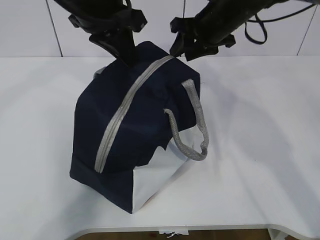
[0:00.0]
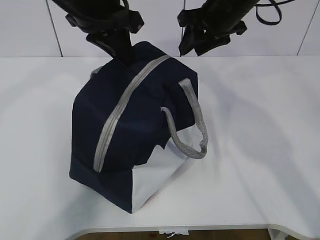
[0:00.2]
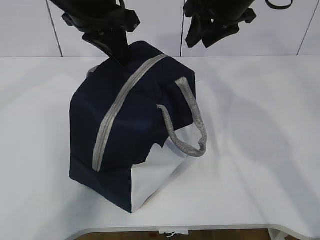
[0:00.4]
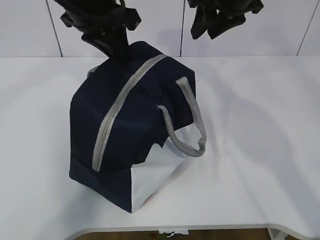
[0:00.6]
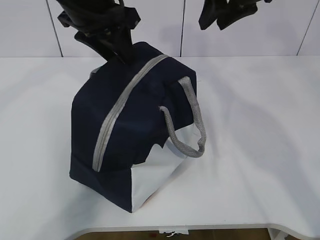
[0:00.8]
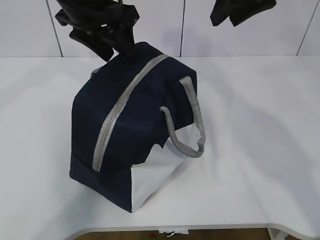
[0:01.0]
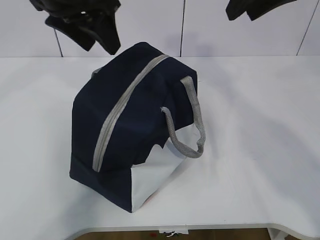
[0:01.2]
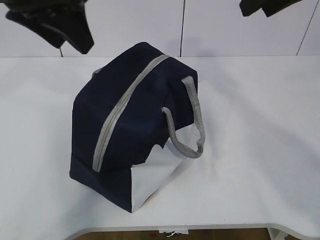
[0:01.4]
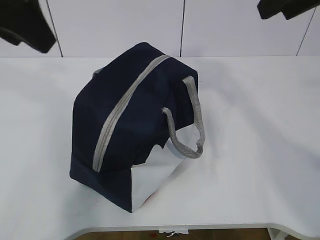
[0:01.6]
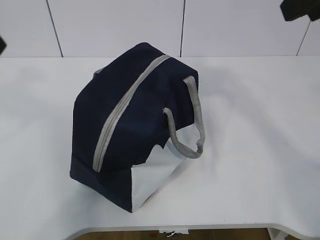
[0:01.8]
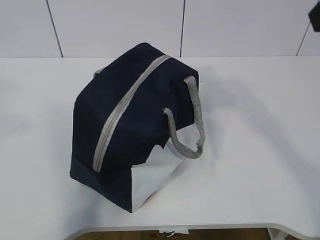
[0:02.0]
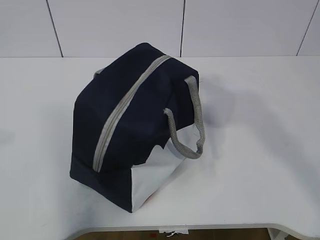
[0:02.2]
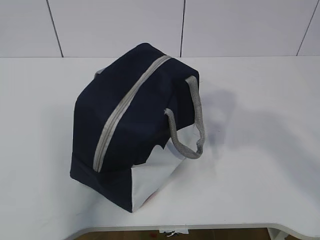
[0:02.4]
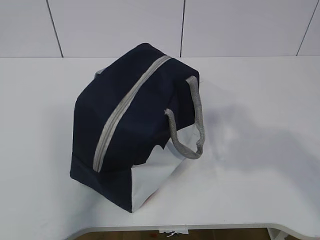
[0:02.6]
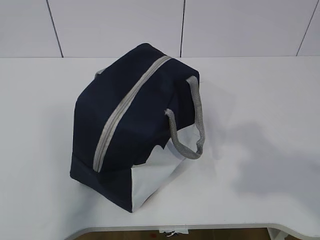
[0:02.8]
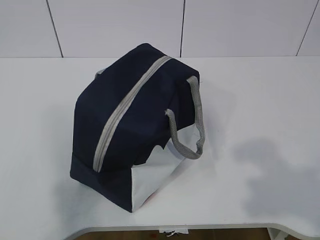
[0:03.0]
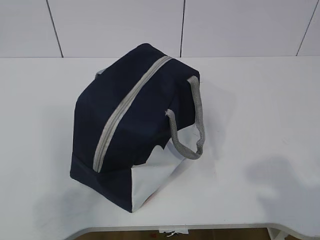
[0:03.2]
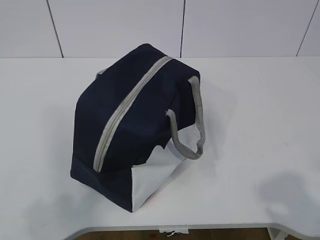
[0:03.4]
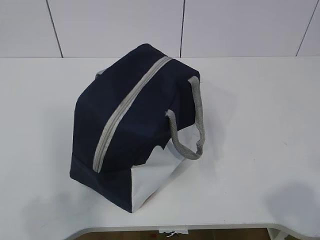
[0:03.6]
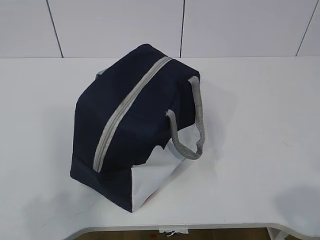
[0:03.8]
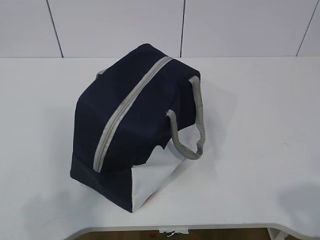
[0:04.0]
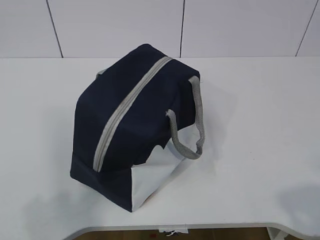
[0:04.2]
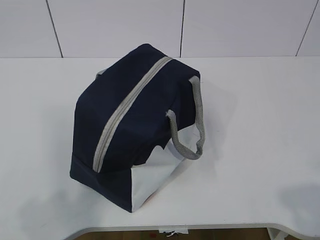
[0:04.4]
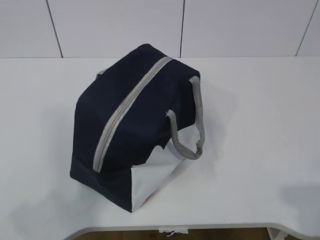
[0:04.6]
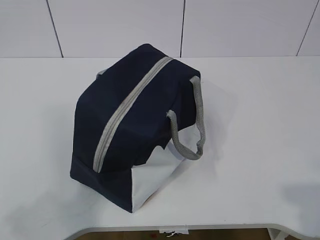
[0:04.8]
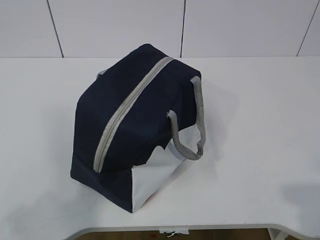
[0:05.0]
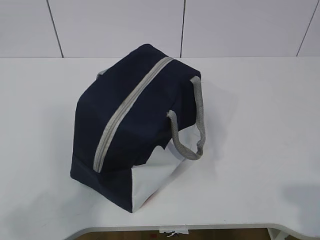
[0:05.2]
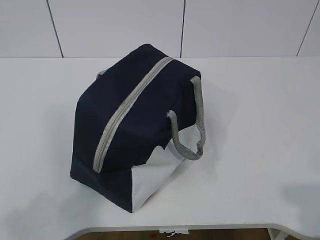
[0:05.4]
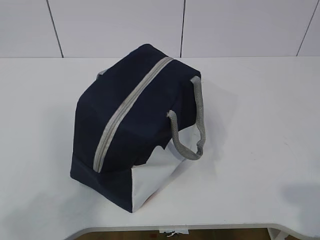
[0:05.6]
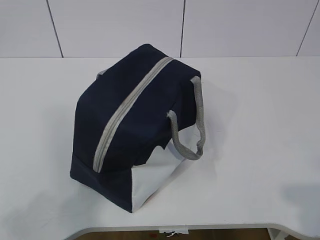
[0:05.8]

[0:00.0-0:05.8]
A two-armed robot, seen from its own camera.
0:00.0 to 0:01.4: The left gripper goes roughly 10 cm to the left and backward, and opens; the right gripper is displaced upward and backward by approximately 20 cm.
0:01.4 to 0:02.8: The right gripper goes approximately 25 cm backward. Meanwhile the left gripper travels backward and to the left by some 35 cm.
0:02.8 to 0:04.4: The right gripper heads downward and backward, covering some 10 cm, while the left gripper is displaced downward by some 10 cm.
0:04.4 to 0:05.8: The grippers stay close to where they were, moving slightly.

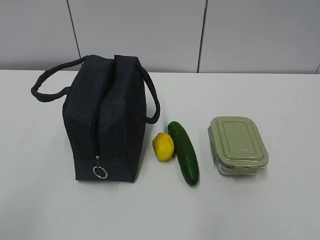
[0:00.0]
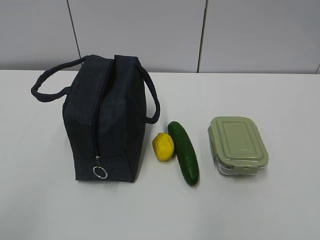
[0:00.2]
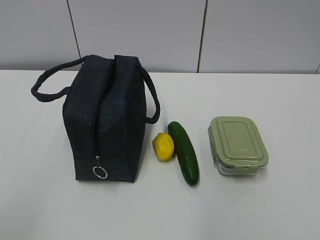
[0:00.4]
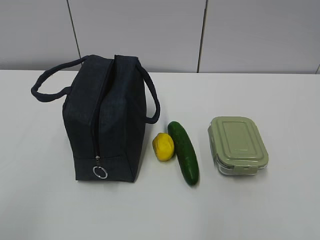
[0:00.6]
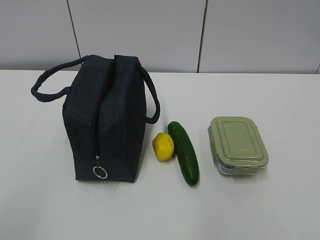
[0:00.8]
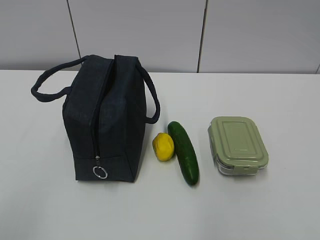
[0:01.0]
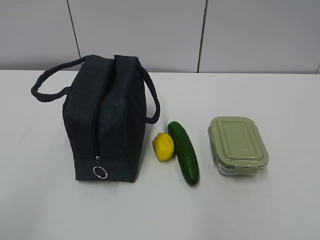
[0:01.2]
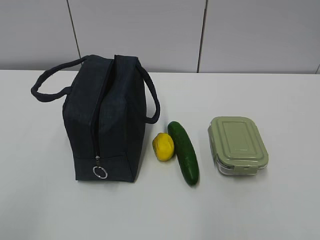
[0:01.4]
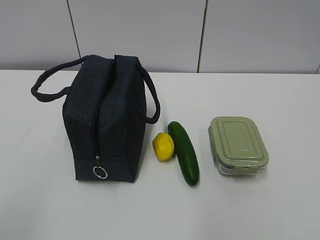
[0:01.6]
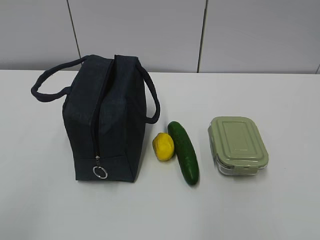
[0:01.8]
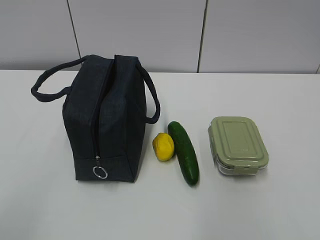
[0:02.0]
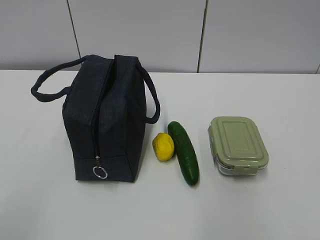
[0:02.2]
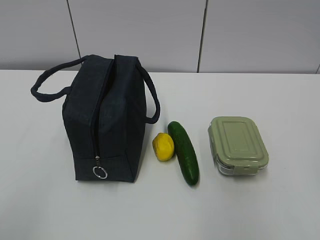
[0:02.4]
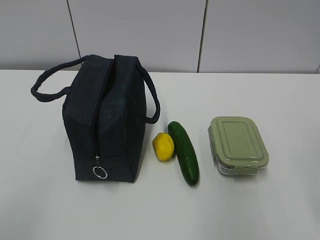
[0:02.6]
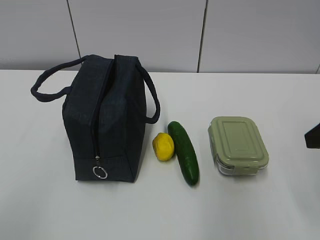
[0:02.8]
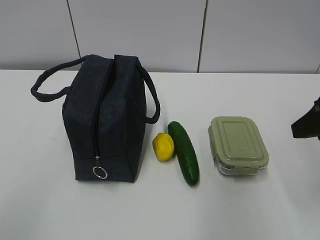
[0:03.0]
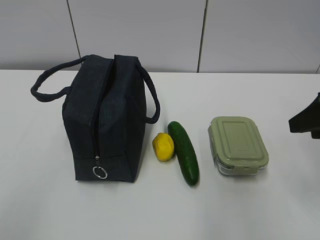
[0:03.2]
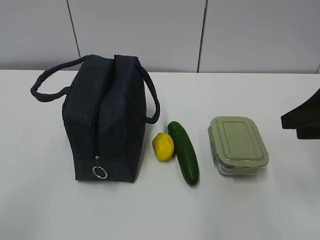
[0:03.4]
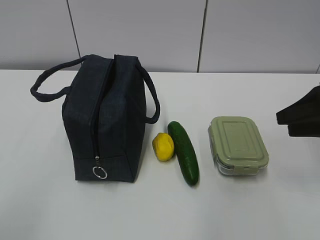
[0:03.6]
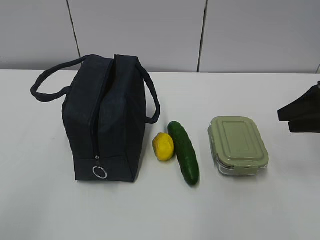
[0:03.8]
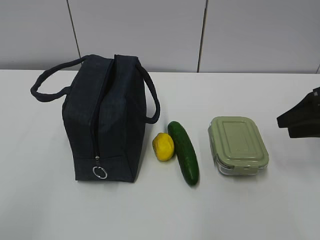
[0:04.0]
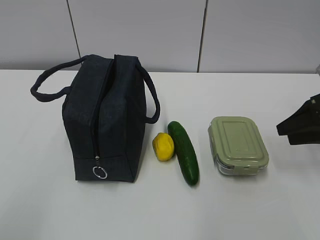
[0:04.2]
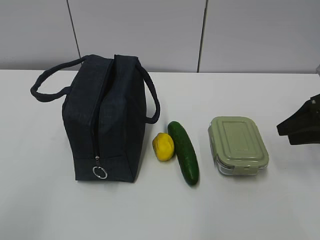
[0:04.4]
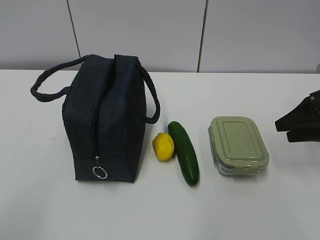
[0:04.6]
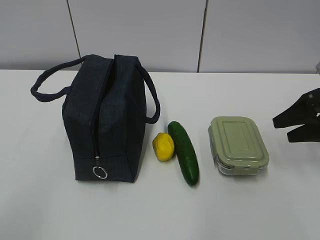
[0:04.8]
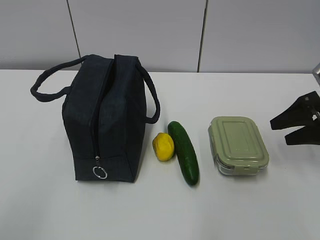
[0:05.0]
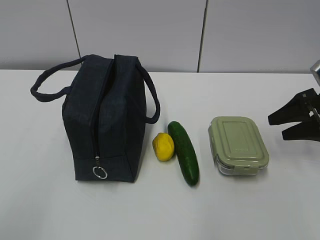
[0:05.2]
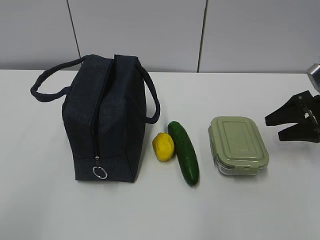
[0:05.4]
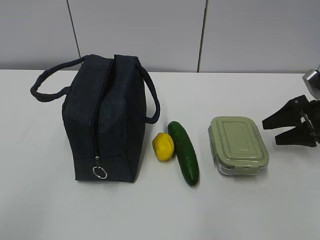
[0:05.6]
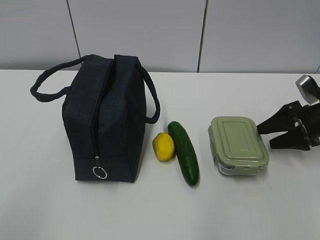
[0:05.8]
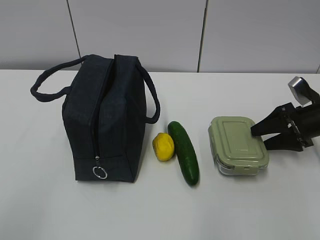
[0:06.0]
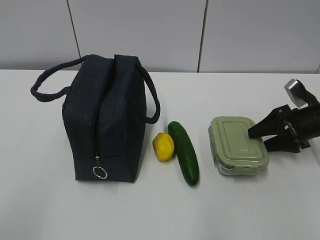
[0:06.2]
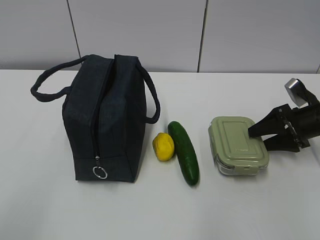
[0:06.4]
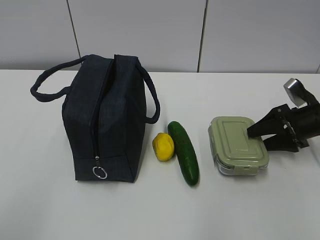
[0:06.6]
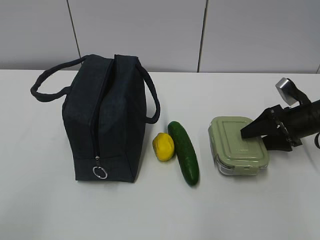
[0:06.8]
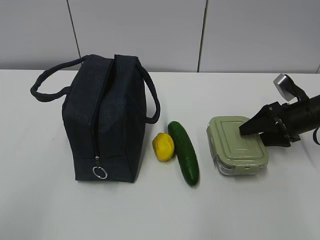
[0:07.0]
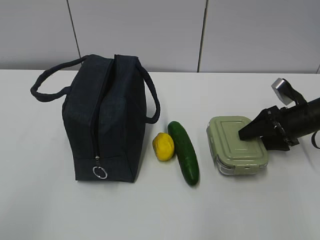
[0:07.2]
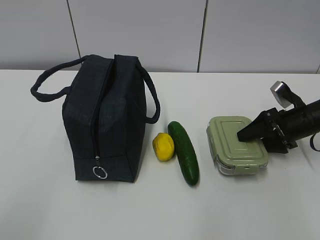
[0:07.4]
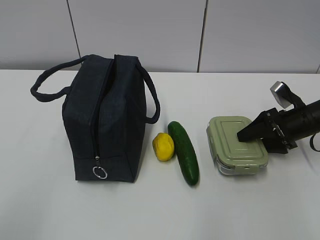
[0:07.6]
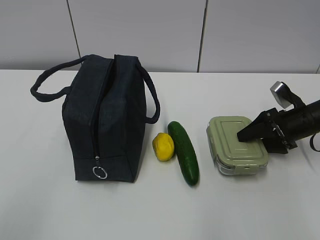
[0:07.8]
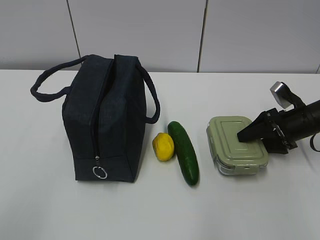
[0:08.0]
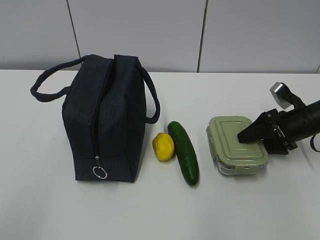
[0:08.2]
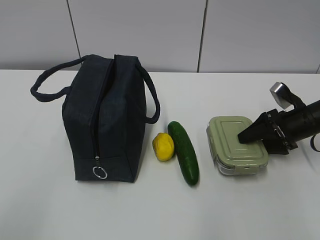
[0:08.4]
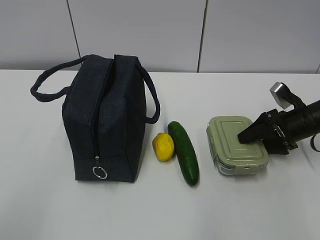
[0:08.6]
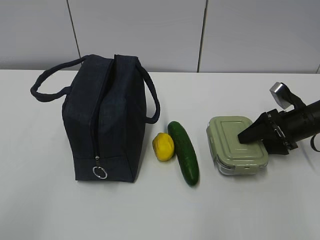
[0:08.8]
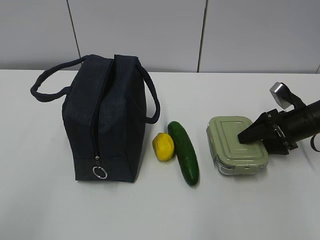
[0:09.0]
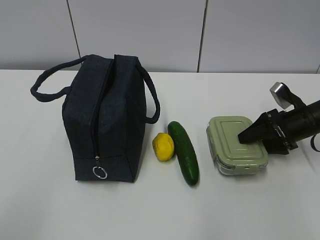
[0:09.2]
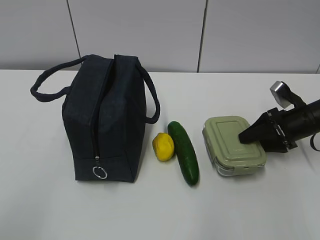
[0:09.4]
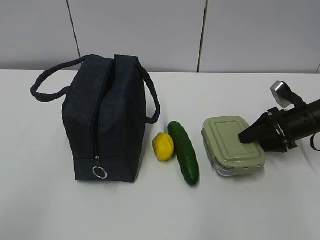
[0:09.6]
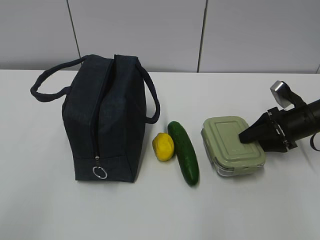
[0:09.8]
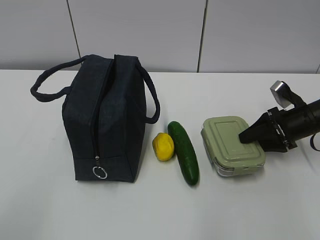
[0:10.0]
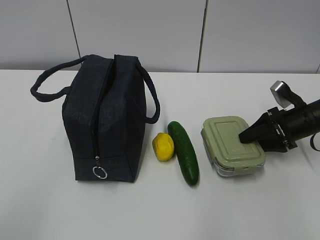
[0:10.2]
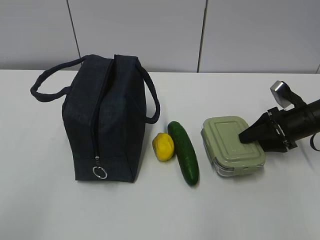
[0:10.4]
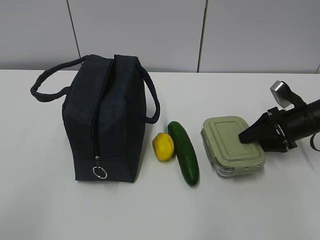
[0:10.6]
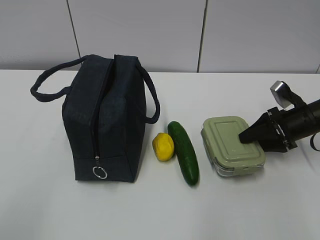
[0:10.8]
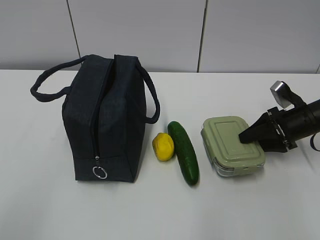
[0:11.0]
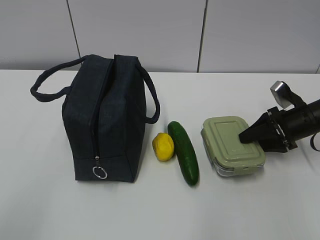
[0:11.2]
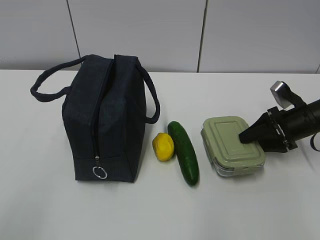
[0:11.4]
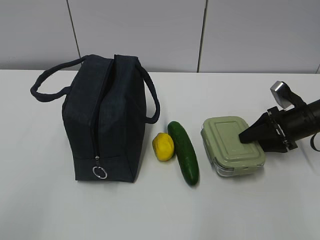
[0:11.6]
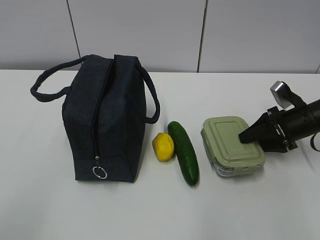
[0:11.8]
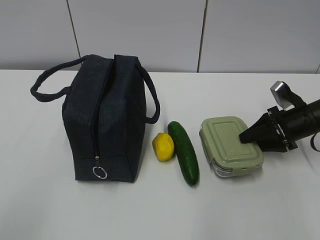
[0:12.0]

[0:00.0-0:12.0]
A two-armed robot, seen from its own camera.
0:01.6 to 0:03.0: The right gripper travels forward by some 20 cm.
0:03.0 to 0:04.4: The right gripper is displaced forward, downward and to the right by roughly 15 cm.
0:04.4 to 0:06.0: The right gripper shifts some 10 cm downward and forward.
0:06.0 to 0:07.6: There are only small adjustments of the grippers.
0:07.6 to 0:12.0: Both grippers stay put.

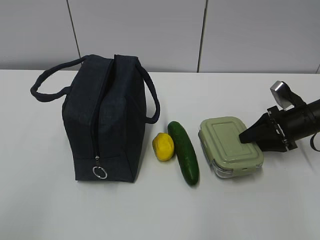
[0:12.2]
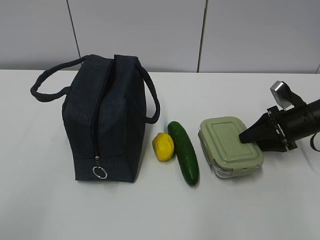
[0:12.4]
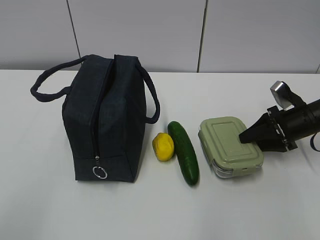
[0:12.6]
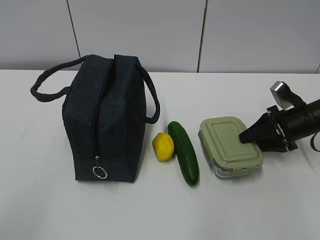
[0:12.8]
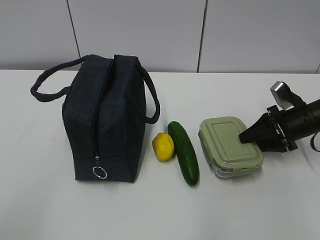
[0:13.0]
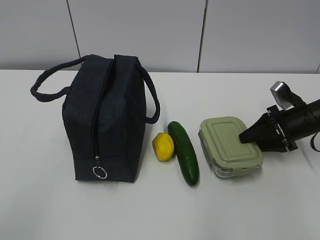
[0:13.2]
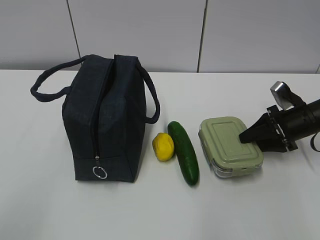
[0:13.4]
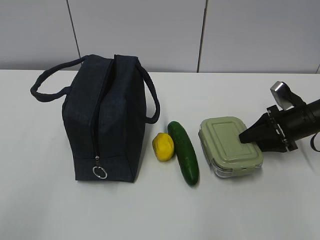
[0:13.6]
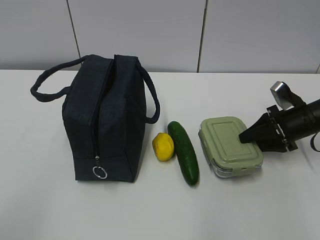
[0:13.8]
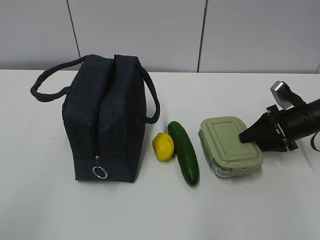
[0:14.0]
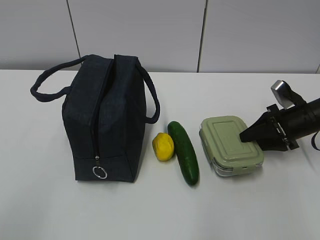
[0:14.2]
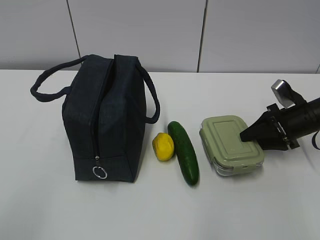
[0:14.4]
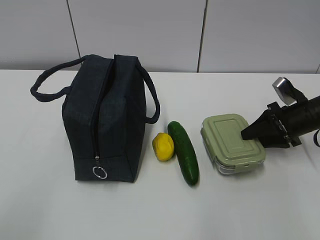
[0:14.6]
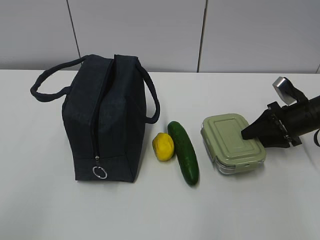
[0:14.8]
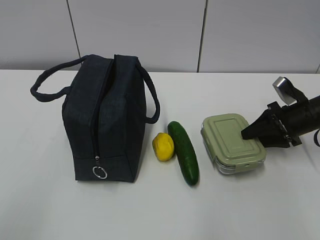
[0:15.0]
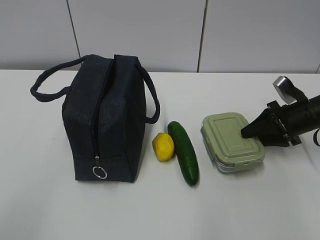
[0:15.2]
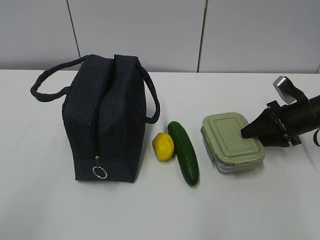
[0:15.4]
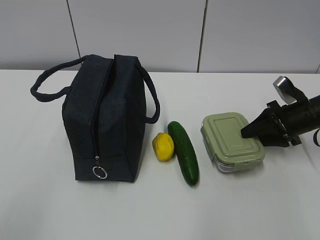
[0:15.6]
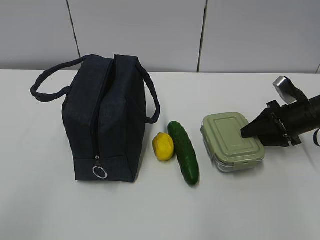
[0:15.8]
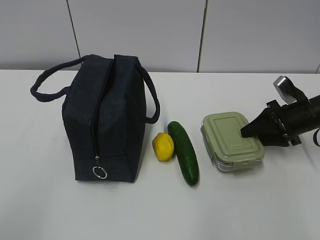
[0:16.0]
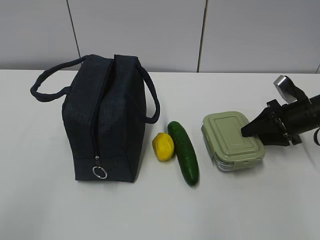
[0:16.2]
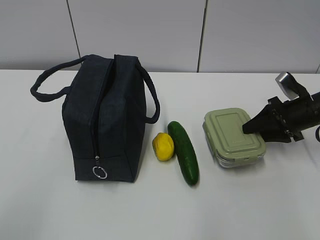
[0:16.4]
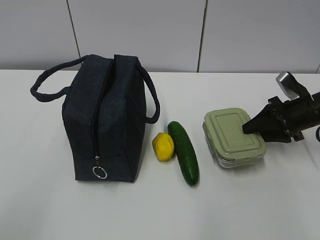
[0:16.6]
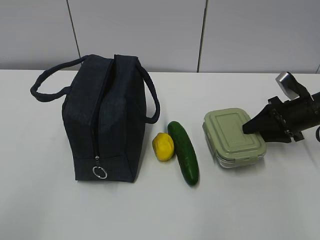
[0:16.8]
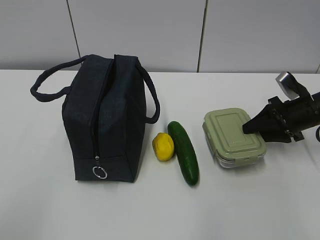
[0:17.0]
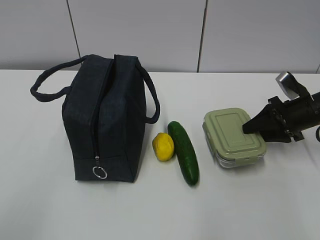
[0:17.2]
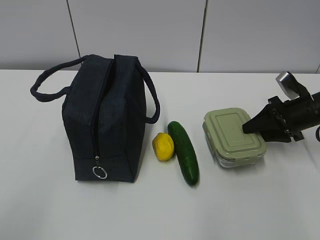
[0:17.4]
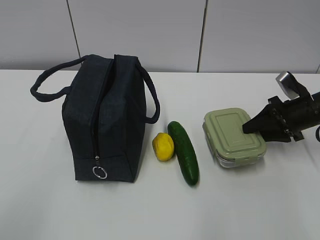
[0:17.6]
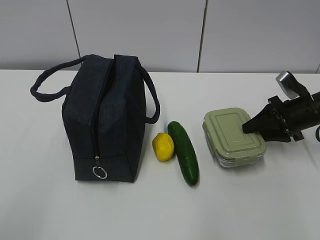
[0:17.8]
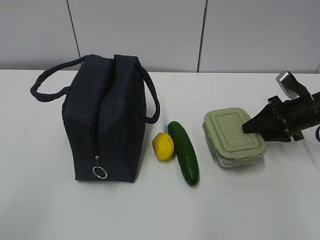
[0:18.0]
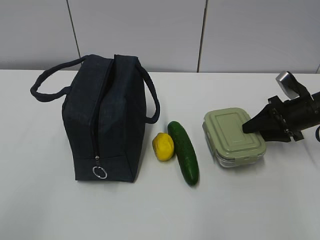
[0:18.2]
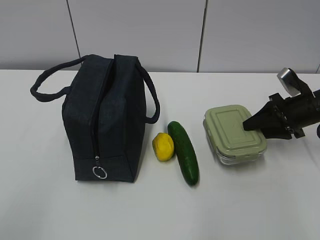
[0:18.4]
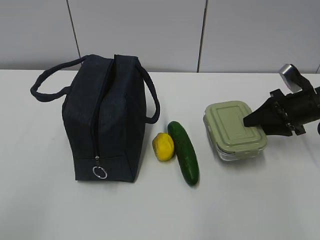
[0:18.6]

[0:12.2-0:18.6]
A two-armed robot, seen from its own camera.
Step, 0:12.2 to 0:15.0: Grab the lunch box with your right hand.
0:12.2 to 0:15.4: Both grippers stay put.
0:15.4 to 0:17.0: Both grippers stay about where they are.
0:17.0 to 0:18.6: The two grippers keep their place.
